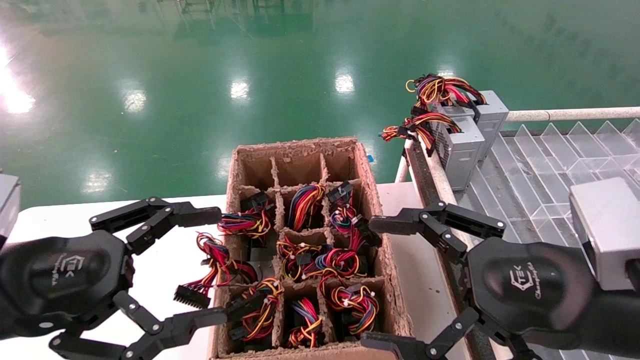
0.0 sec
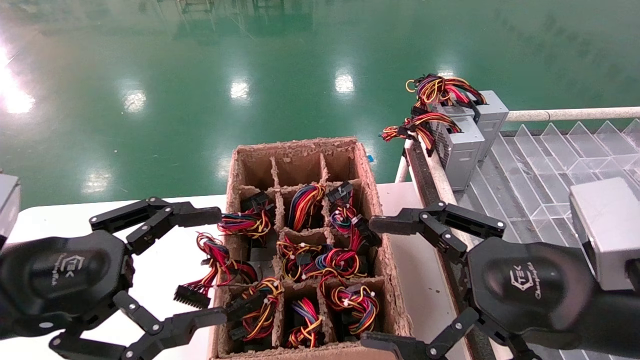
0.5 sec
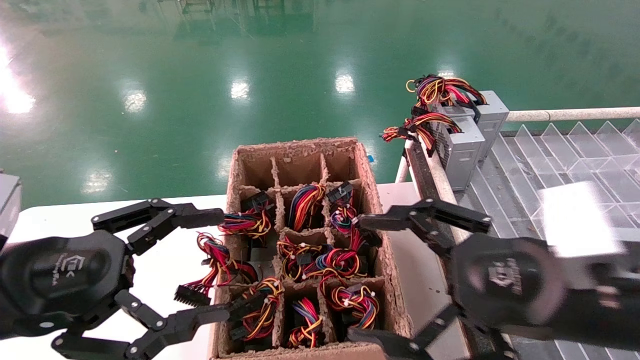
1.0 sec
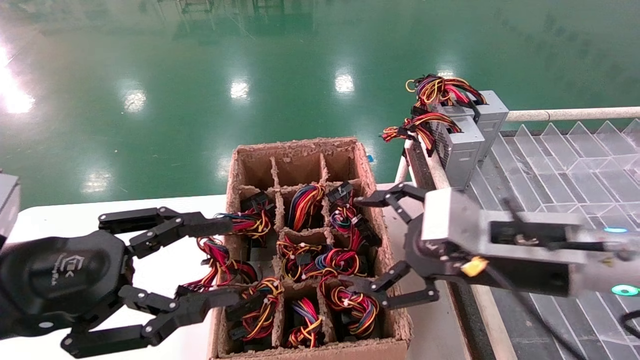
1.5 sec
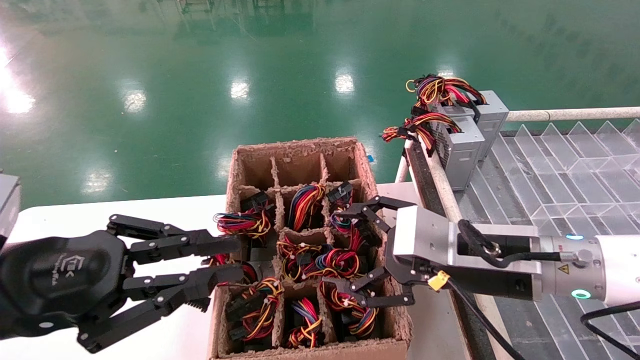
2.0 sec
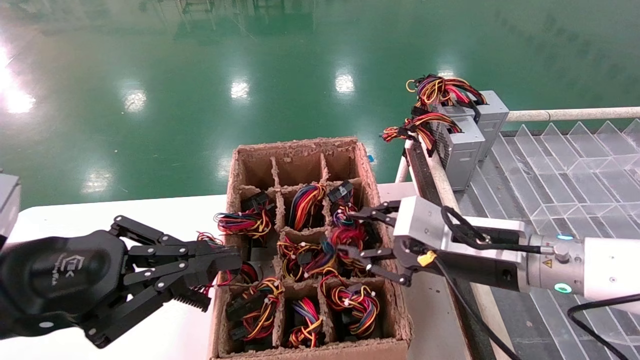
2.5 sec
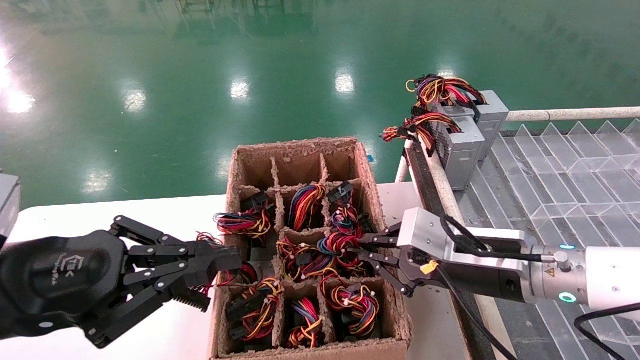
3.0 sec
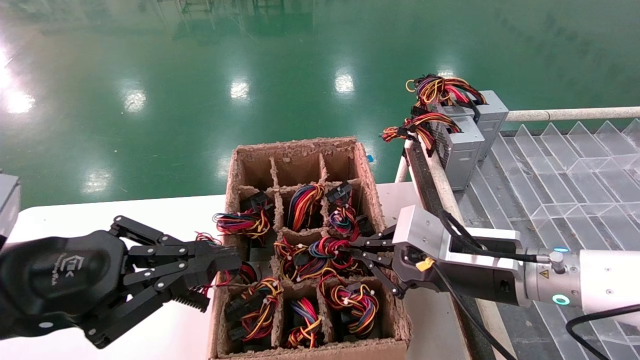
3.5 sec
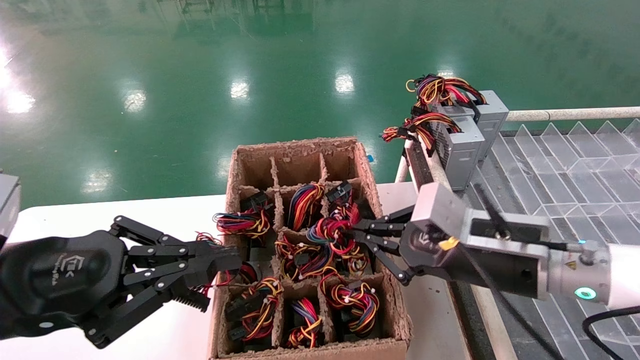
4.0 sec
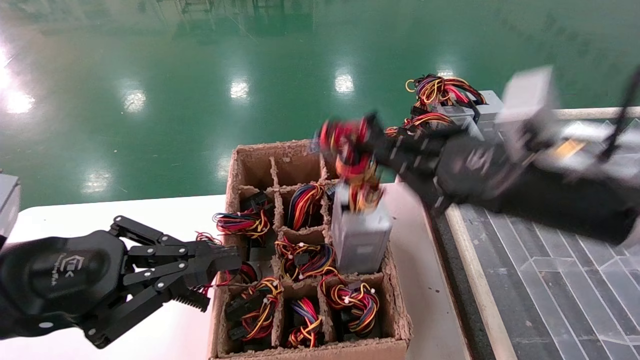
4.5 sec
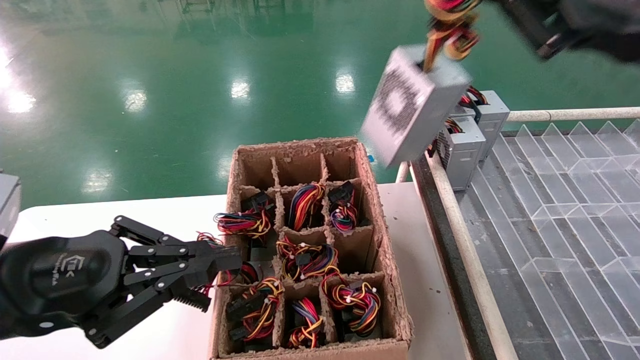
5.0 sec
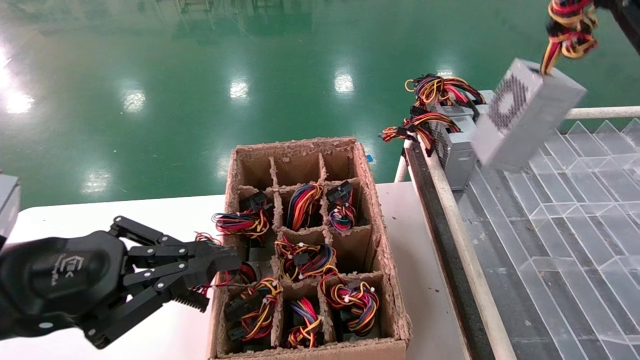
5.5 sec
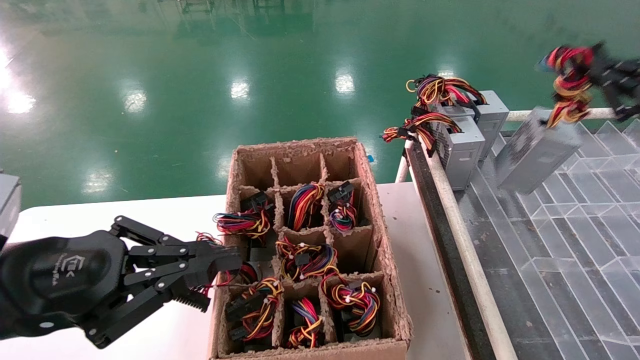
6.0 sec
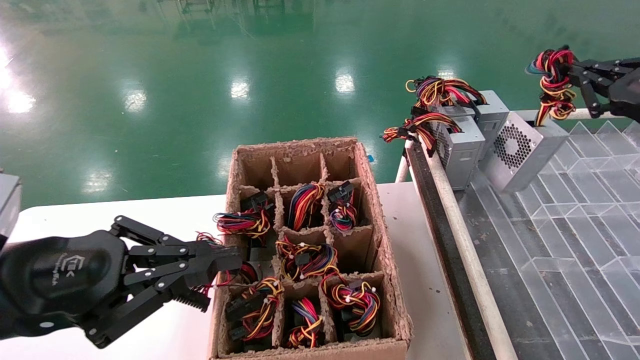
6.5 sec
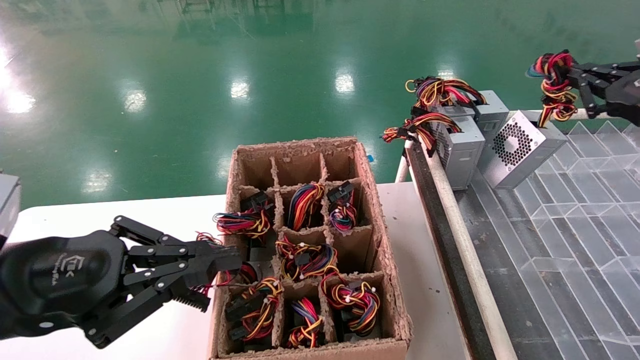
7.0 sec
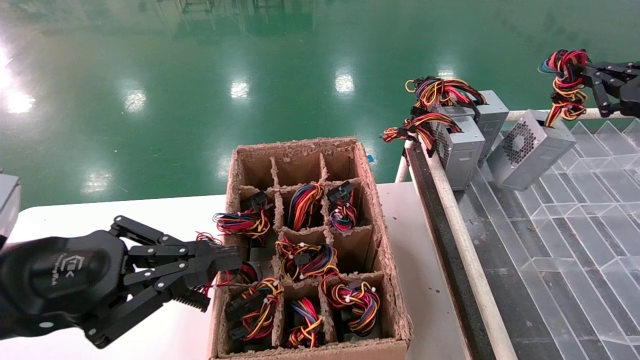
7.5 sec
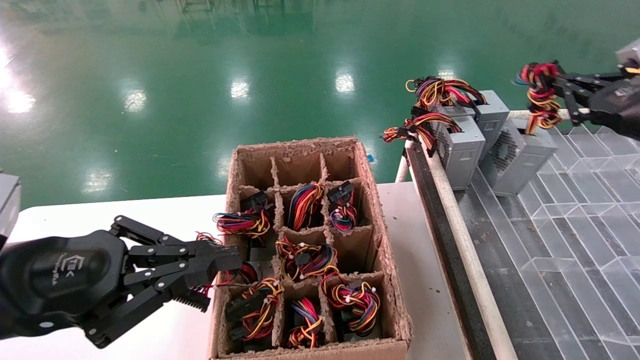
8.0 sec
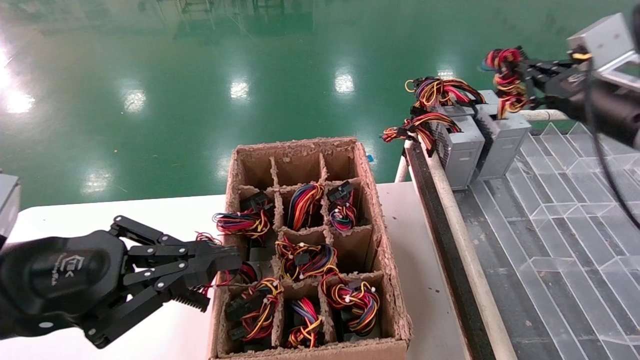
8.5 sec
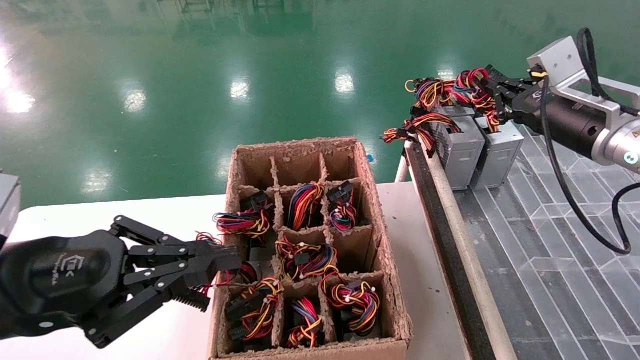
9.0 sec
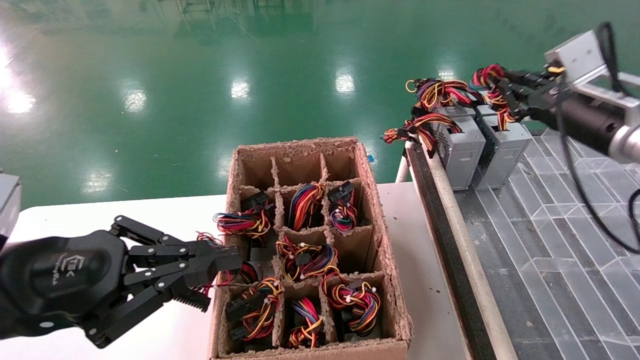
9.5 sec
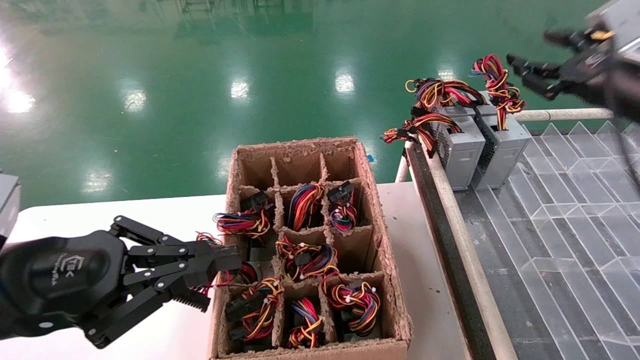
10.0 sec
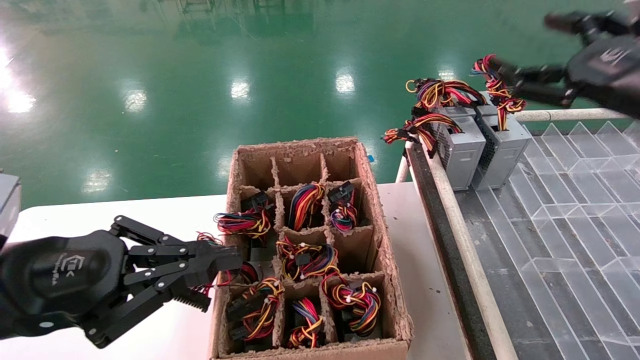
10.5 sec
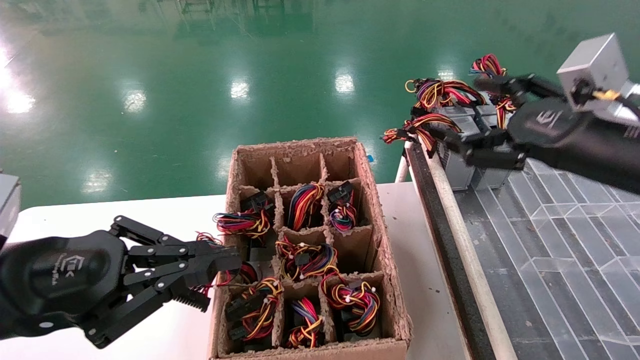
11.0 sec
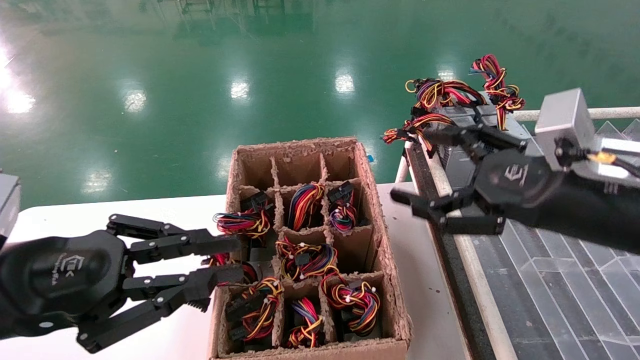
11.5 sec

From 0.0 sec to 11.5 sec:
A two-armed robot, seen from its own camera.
Step, from 1.5 sec to 3.0 sec: Grab the main unit power supply from the containment box.
Step, from 3.5 sec to 10.0 sec: Place the main unit power supply in the designated area.
From 0.0 sec to 2.0 sec: The right gripper goes about 10 cm forward. Meanwhile the left gripper closes.
From 2.0 sec to 4.0 sec: The right gripper closes its fingers.
From 4.0 sec to 6.0 sec: The right gripper is displaced to the right and upward by approximately 25 cm.
From 6.0 sec to 7.5 sec: The grippers move only a little.
From 7.5 sec to 9.5 sec: The right gripper moves to the left and forward, roughly 10 cm.
From 9.5 sec to 11.5 sec: The right gripper moves backward and to the left, about 15 cm, and opens.

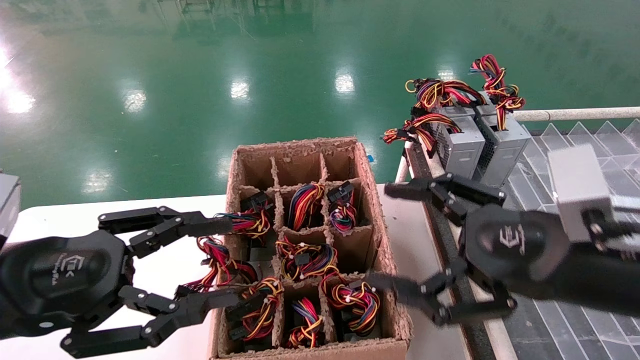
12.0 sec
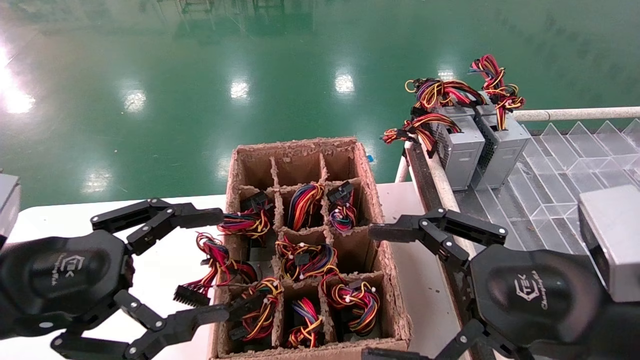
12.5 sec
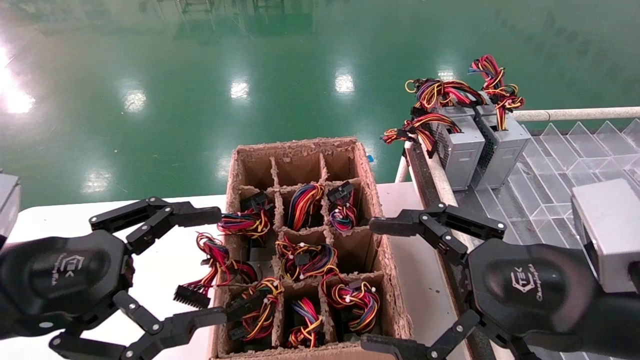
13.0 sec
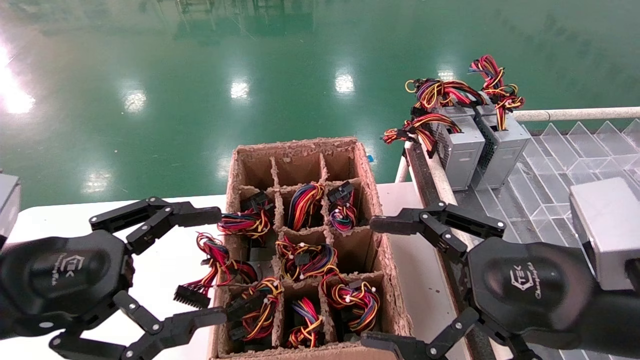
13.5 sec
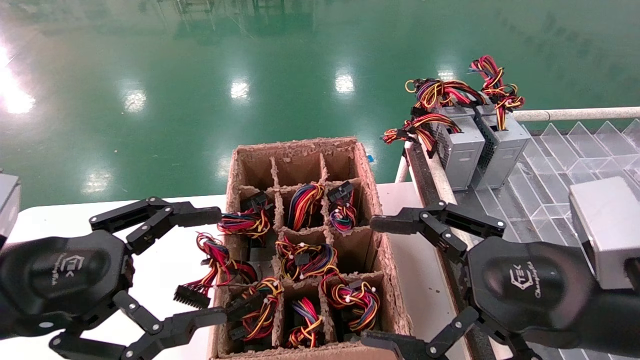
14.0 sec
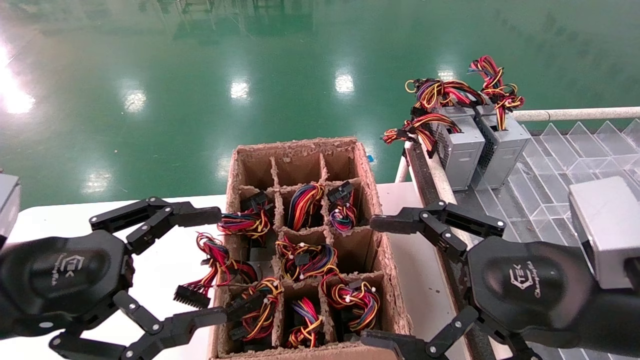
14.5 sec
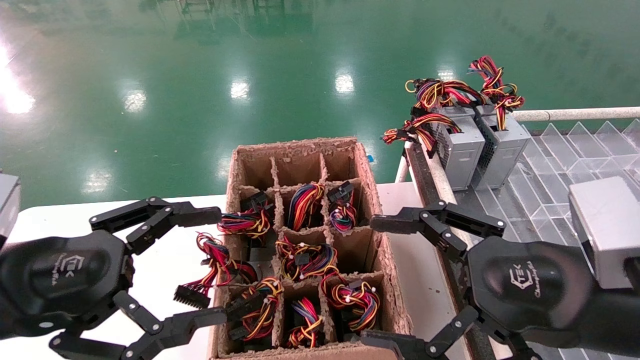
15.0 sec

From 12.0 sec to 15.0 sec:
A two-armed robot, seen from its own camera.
From 12.0 sec to 13.5 sec: The left gripper opens.
From 13.5 sec to 15.0 sec: Both grippers stay put.

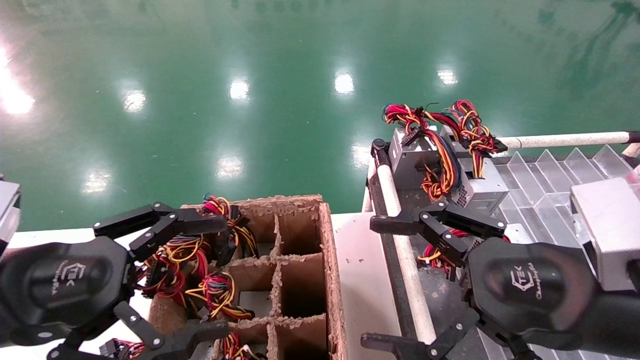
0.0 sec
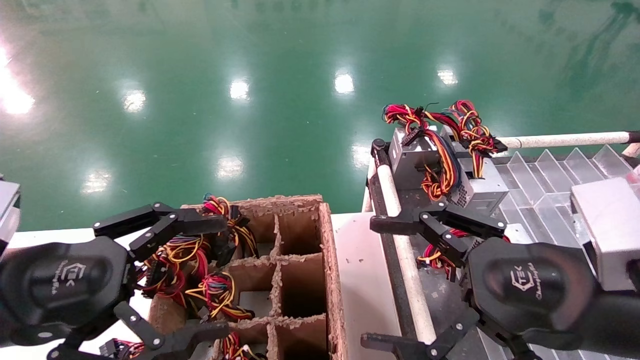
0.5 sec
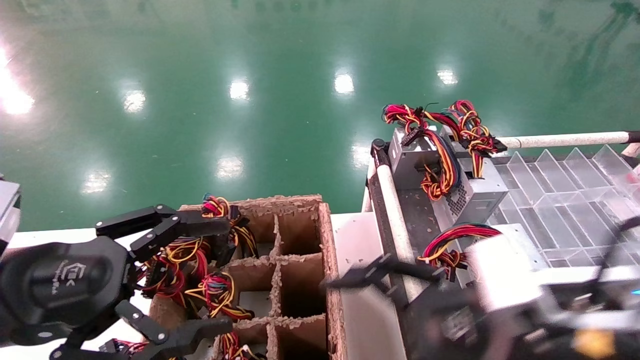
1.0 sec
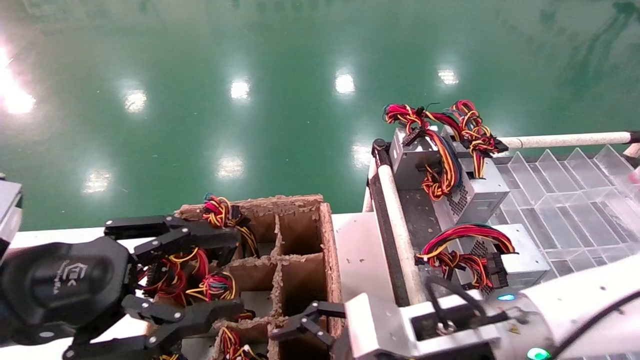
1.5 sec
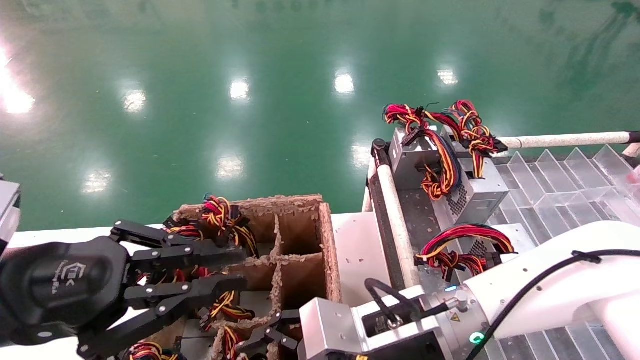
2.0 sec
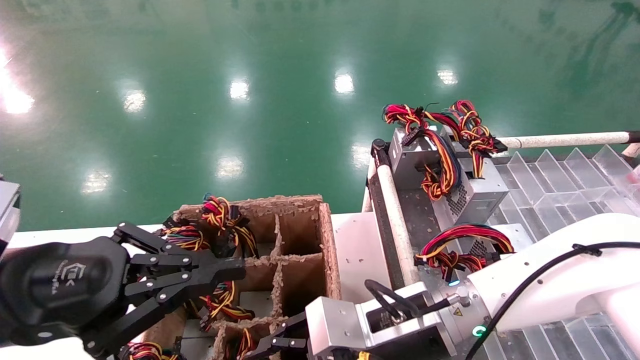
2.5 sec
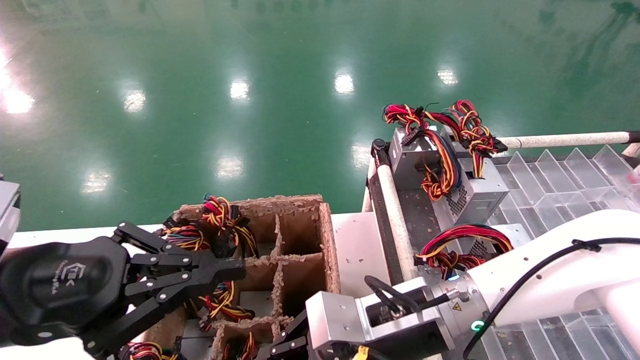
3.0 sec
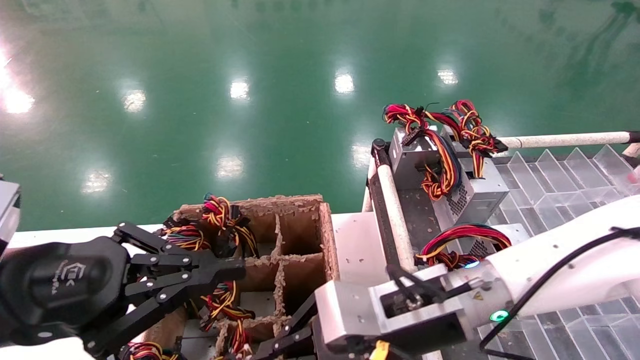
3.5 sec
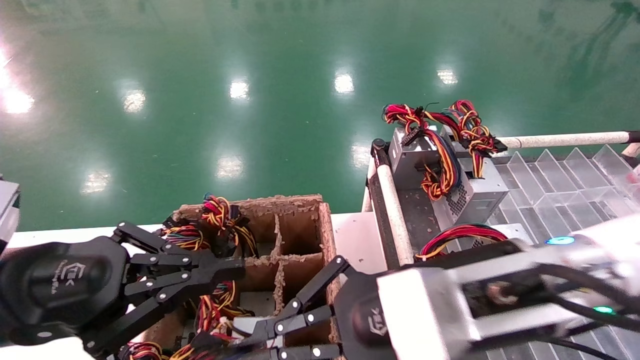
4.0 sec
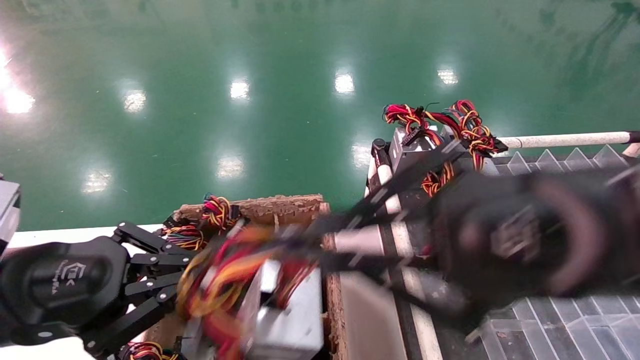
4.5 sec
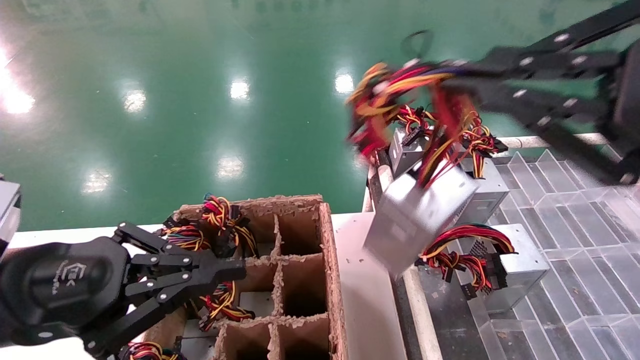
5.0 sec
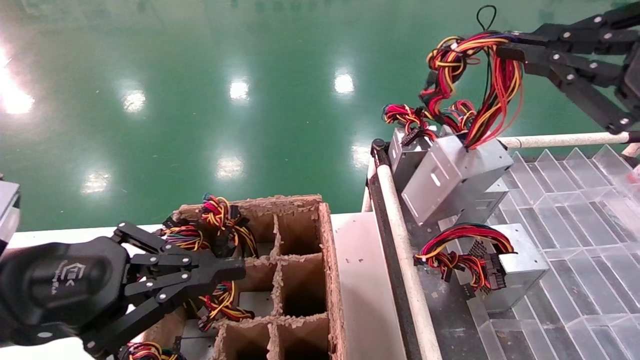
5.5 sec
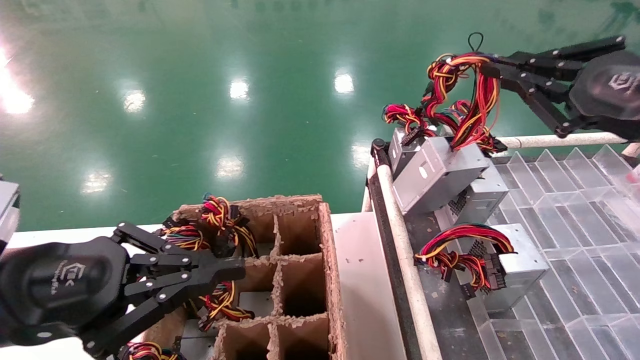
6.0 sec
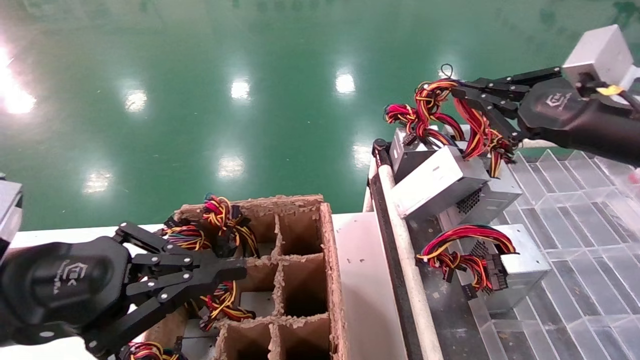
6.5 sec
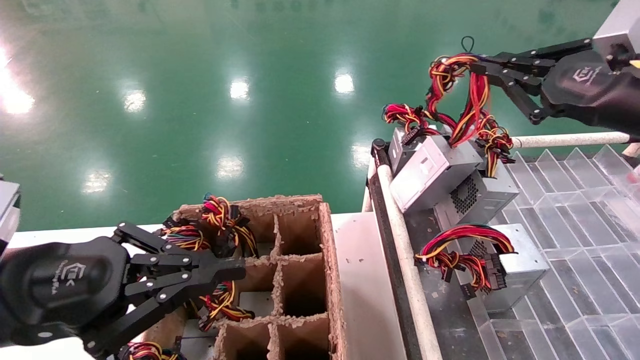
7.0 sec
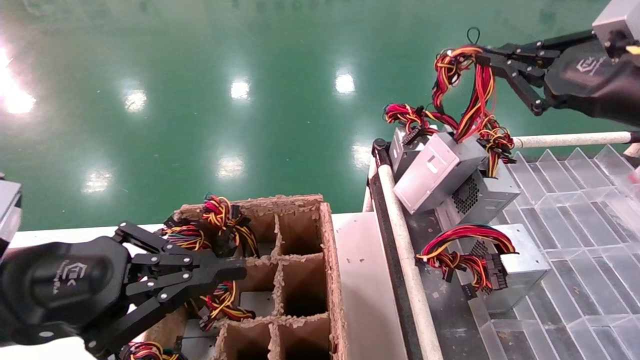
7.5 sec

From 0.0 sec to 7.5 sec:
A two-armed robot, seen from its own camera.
Step, from 1.5 sec to 3.0 sec: Grab the main unit power supply from the containment box.
From 0.0 sec to 2.0 sec: The left gripper closes. Meanwhile the right gripper travels to the left, downward and forward by some 20 cm.
From 2.0 sec to 4.0 sec: The right gripper moves upward and backward, approximately 10 cm, and closes its fingers.
From 4.0 sec to 5.5 sec: The right gripper moves to the right and upward, roughly 25 cm.
From 5.5 sec to 7.5 sec: The right gripper is displaced forward by roughly 10 cm.
